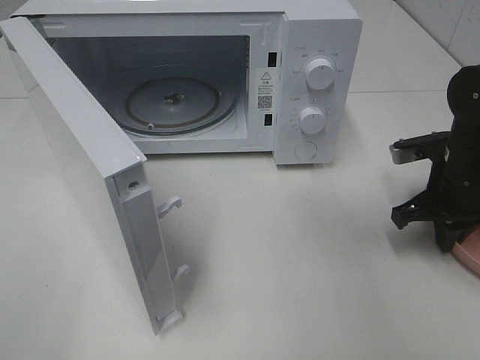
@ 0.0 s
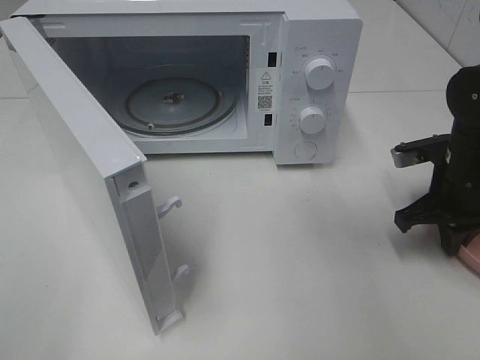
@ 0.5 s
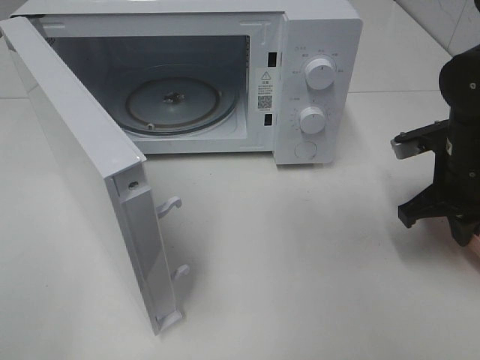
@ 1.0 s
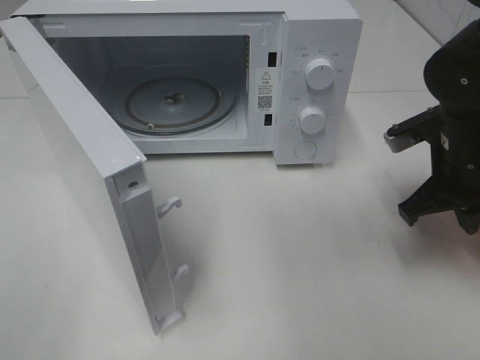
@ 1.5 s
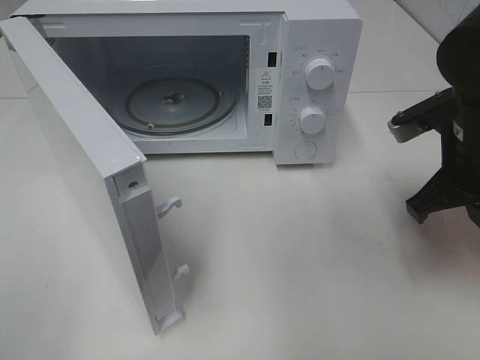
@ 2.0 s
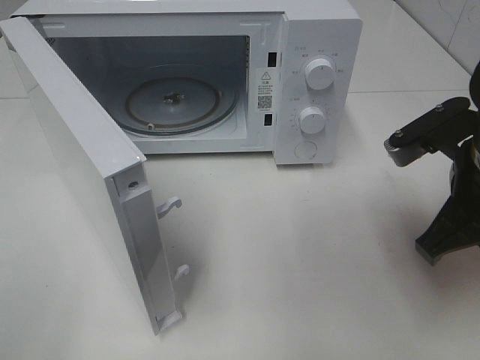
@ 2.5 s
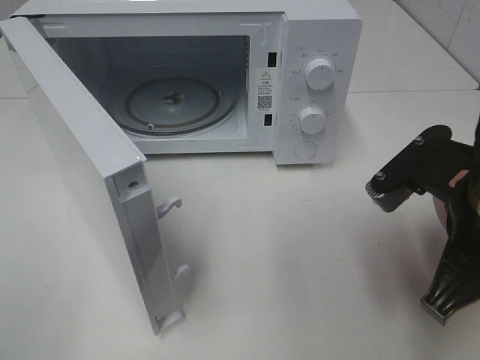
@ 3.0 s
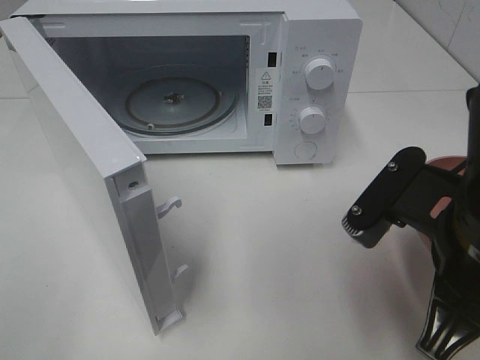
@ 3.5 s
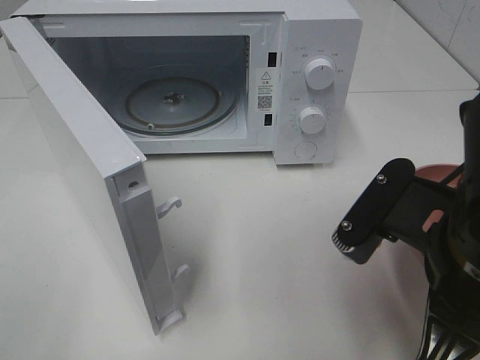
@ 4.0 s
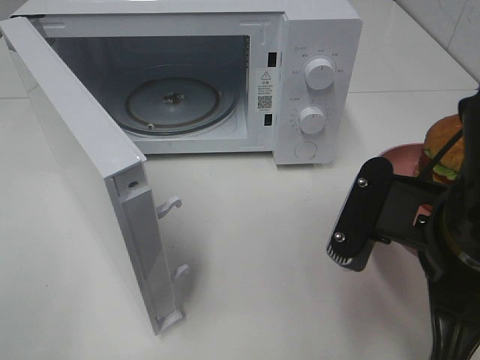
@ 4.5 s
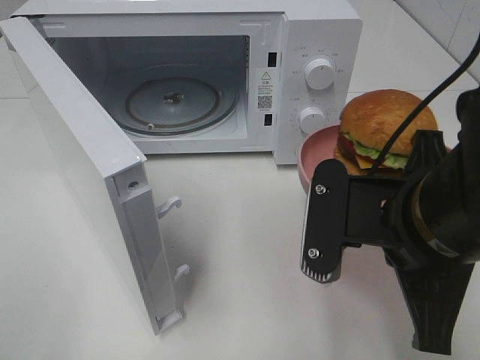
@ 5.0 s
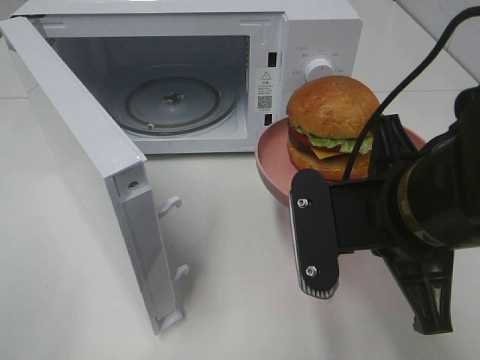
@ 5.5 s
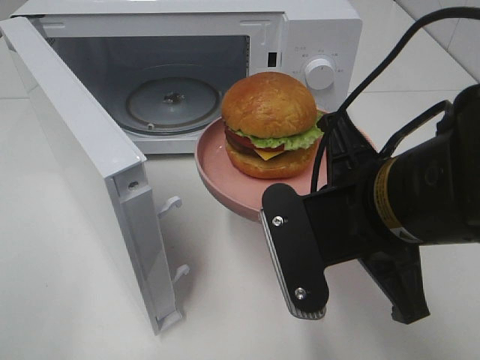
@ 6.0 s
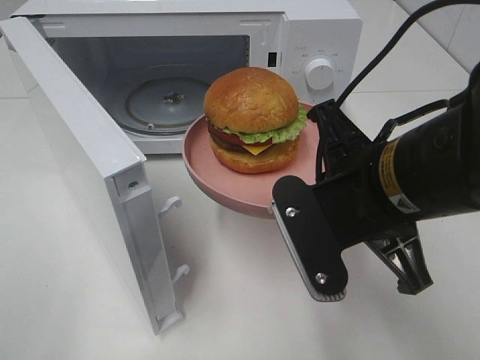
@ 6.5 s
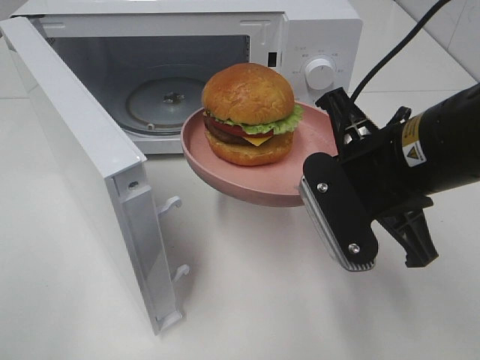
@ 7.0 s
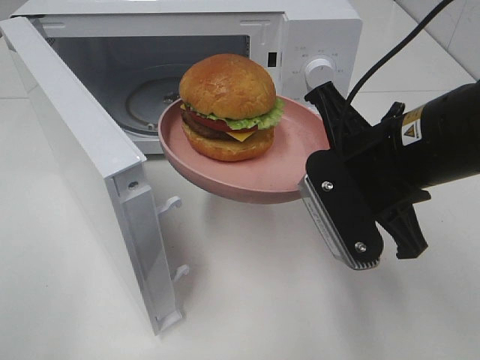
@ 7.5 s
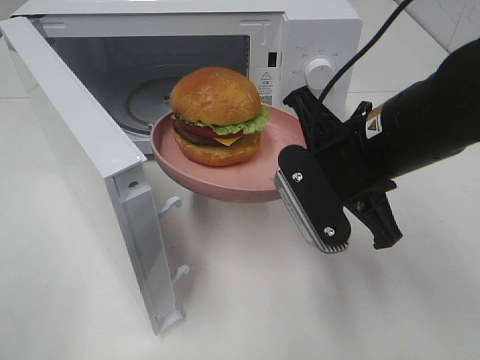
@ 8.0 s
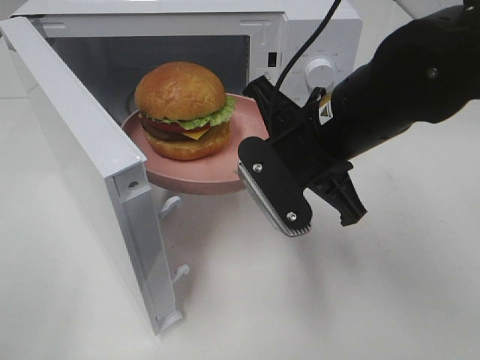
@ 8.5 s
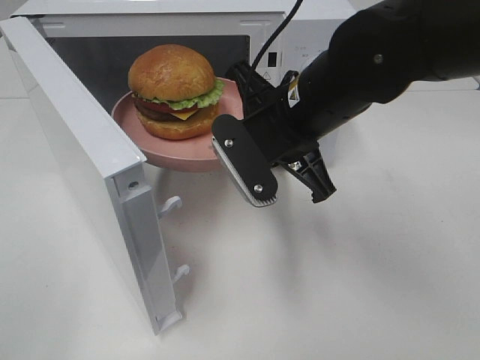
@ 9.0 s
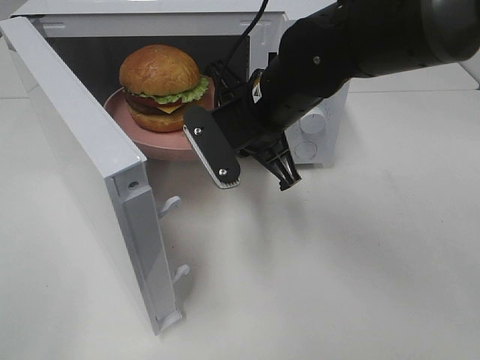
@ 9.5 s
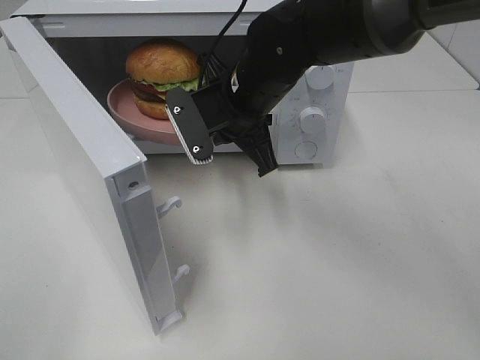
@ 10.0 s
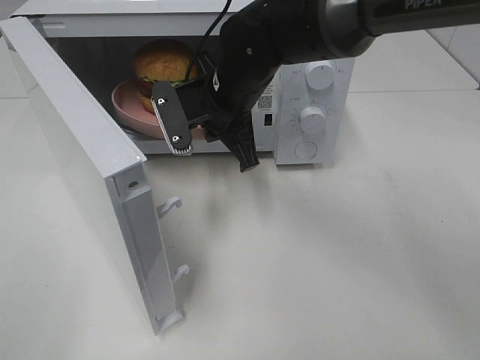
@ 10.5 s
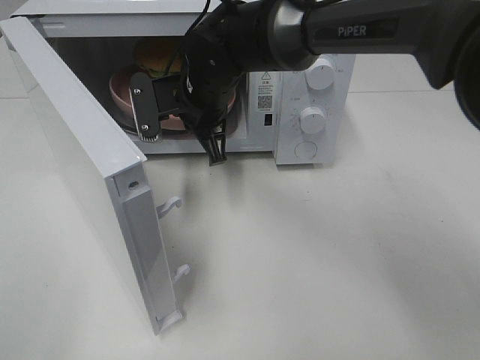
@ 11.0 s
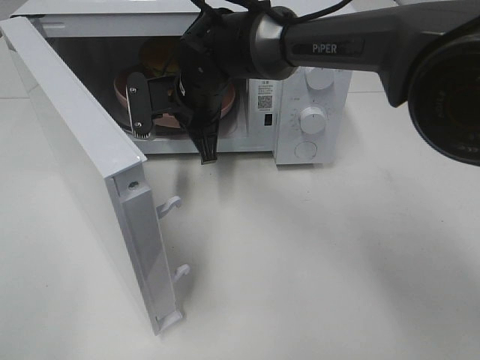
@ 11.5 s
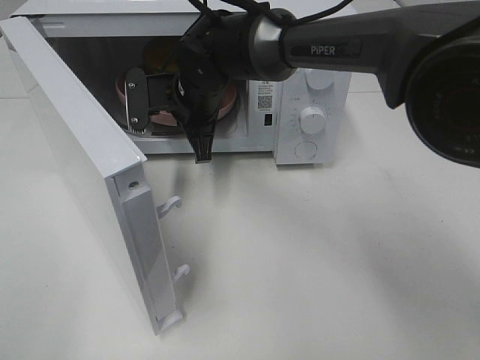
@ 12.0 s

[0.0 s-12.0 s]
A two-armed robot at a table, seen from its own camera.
Task of the whole recording: Heat the burger.
0.0 to 2.0 s: The right gripper is displaced upward by about 10 cm.
2.0 to 4.0 s: The right gripper heads backward and to the left, covering roughly 15 cm.
4.0 to 6.0 s: The right gripper changes place by roughly 5 cm.
6.0 to 8.0 s: The right gripper moves forward, some 10 cm.
8.0 to 10.0 s: The right gripper travels forward and to the left by about 15 cm.
10.0 to 12.0 s: The right gripper travels to the left and forward by about 10 cm.

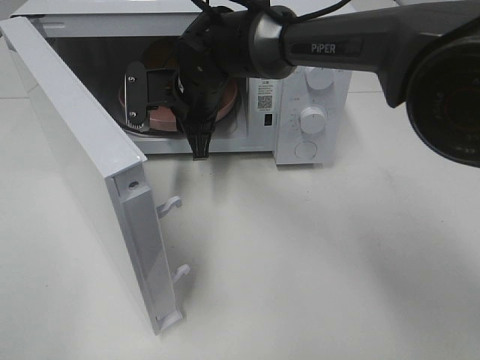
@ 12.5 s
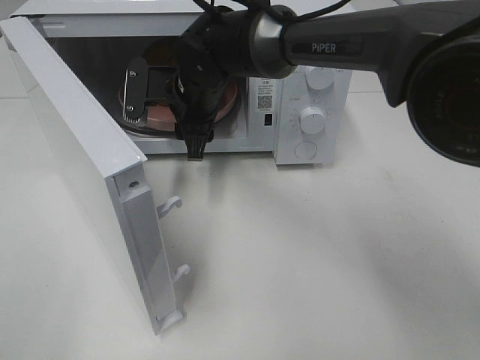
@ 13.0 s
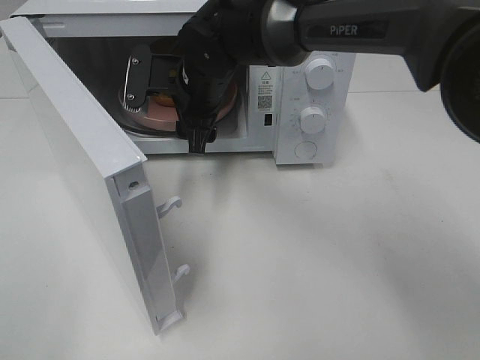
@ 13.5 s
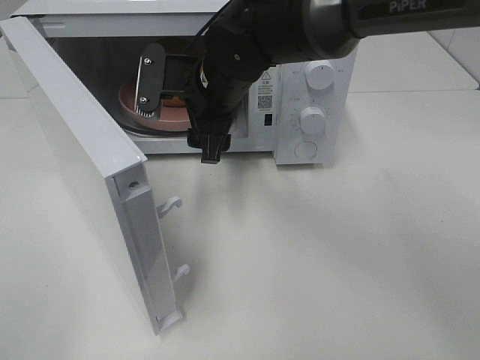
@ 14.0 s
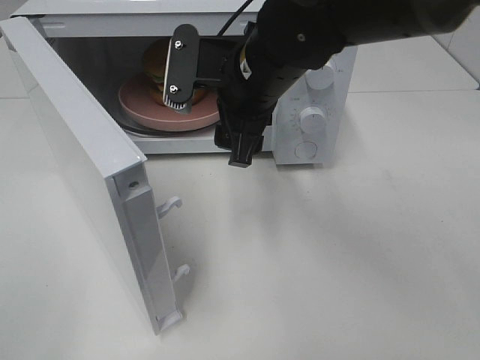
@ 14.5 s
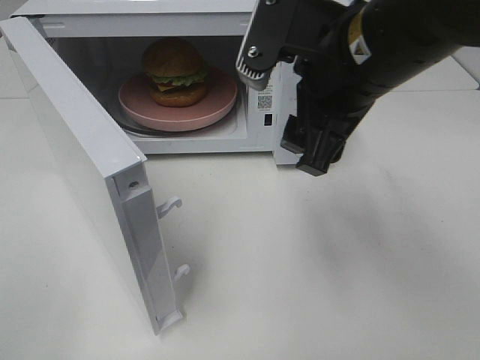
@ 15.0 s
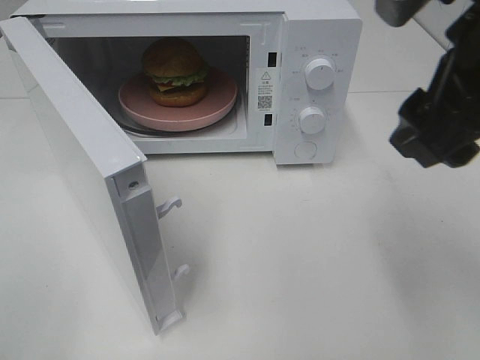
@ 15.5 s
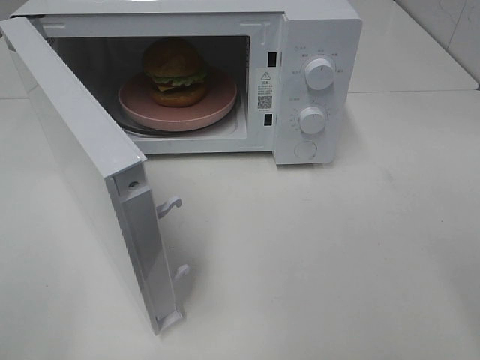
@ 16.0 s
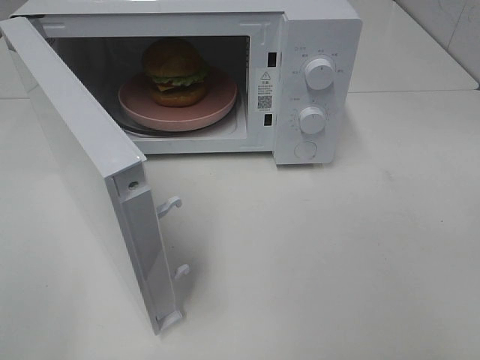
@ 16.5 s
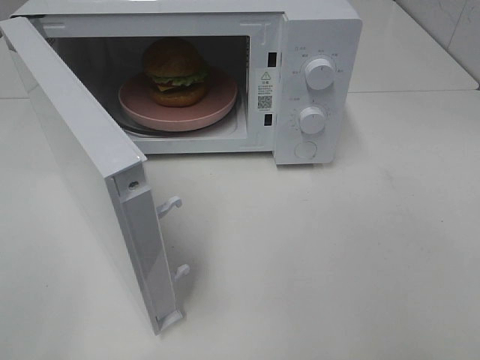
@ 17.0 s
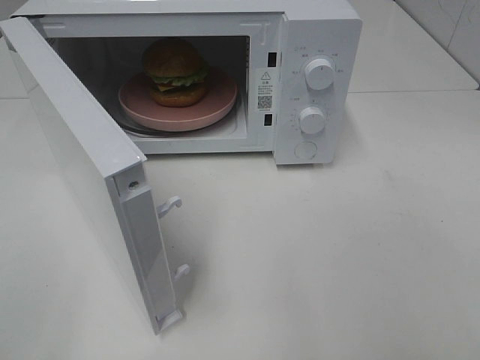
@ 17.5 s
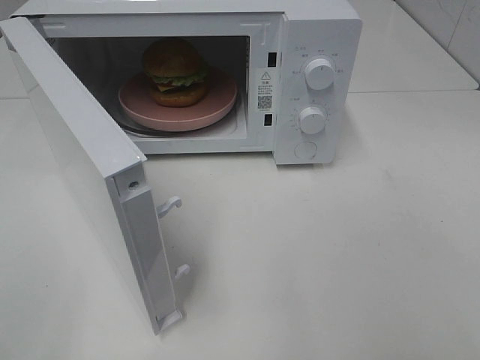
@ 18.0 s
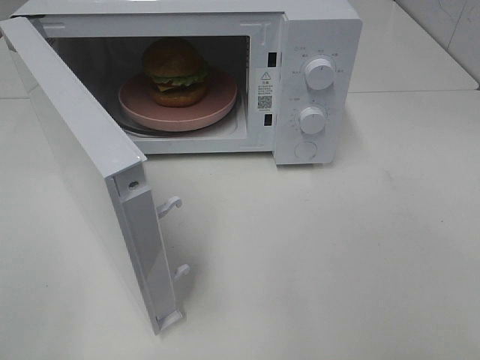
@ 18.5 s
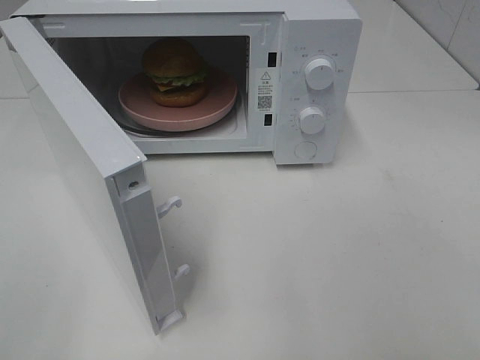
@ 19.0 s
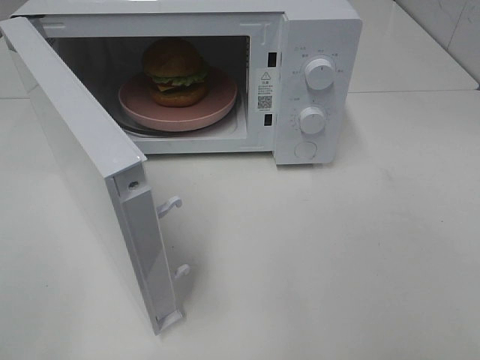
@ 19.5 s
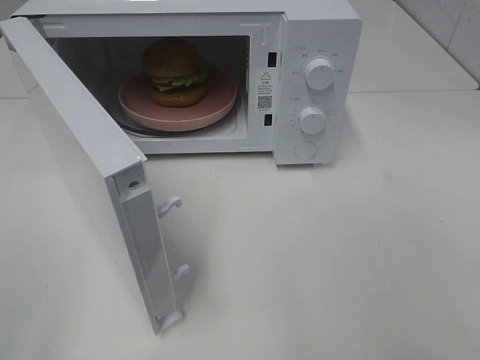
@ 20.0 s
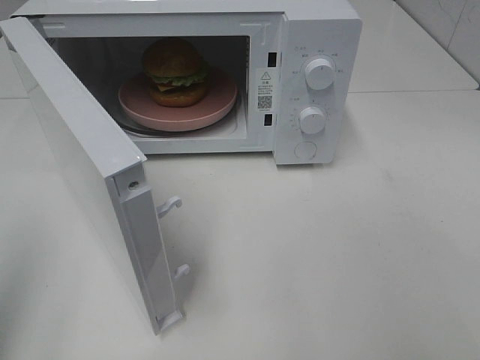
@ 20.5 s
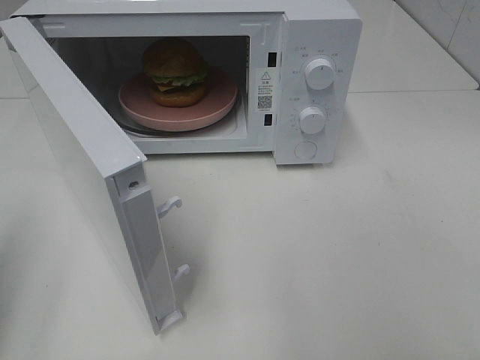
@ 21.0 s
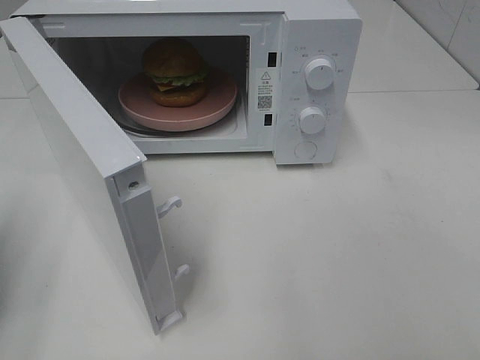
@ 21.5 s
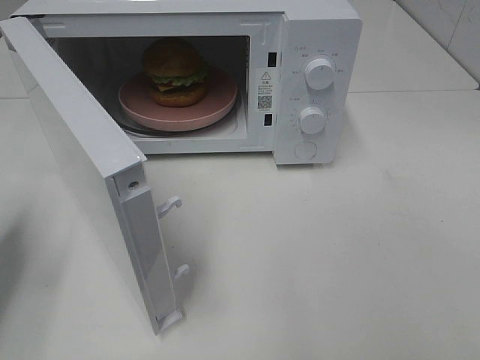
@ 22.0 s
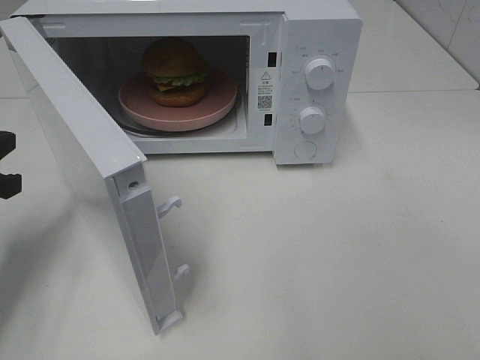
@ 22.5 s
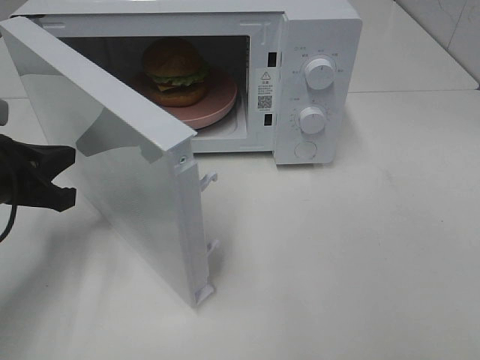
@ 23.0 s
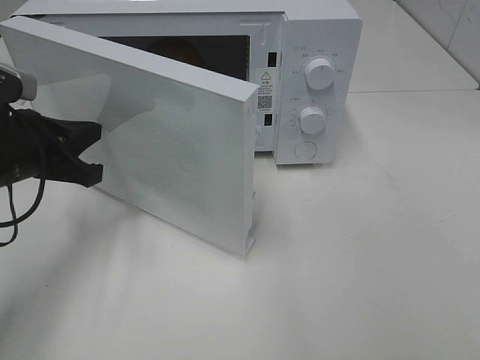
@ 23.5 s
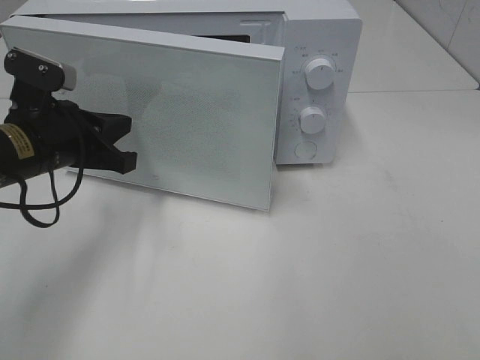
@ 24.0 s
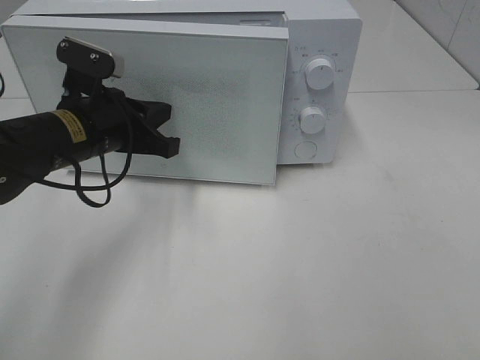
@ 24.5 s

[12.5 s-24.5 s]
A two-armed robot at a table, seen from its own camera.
Task of the whole recording: Heat the burger.
12.5 to 14.5 s: The right gripper is displaced backward, to the right and upward by approximately 15 cm, and opens.
14.5 to 16.5 s: The right gripper travels backward and to the right by about 35 cm.
20.5 to 22.5 s: The left gripper heads forward and downward, covering approximately 25 cm.
22.5 to 24.5 s: The left gripper goes about 15 cm to the right and forward.

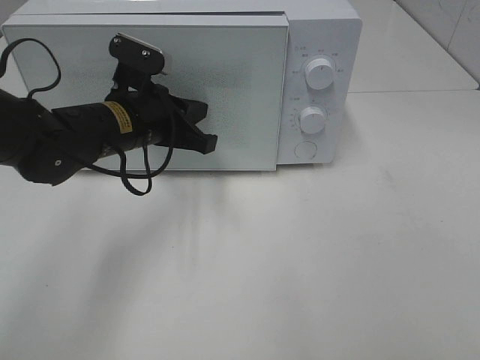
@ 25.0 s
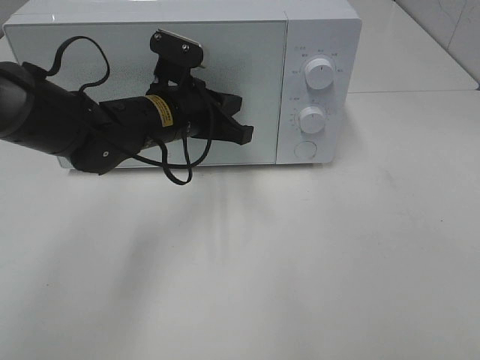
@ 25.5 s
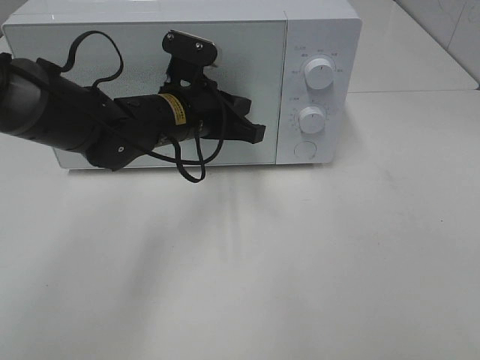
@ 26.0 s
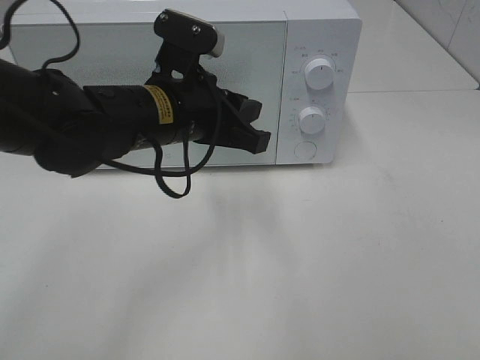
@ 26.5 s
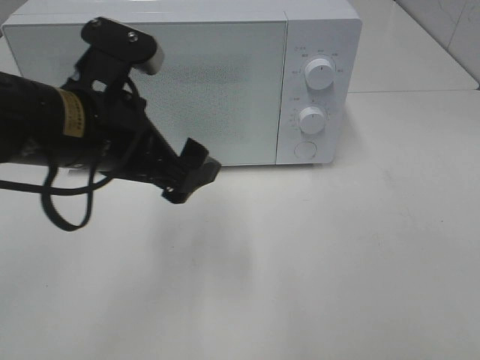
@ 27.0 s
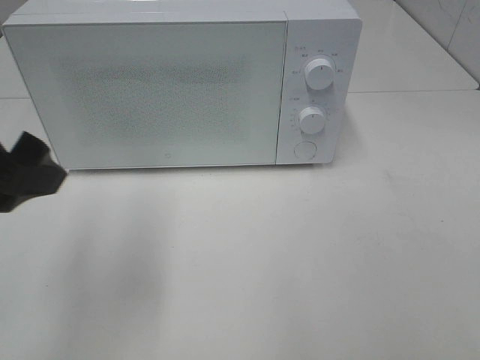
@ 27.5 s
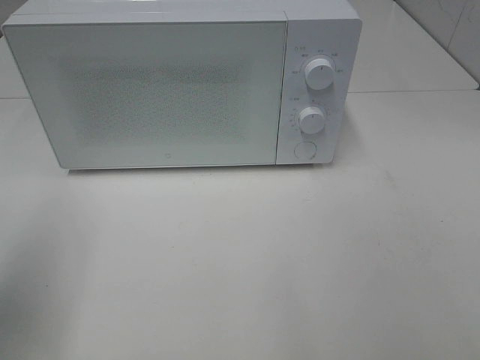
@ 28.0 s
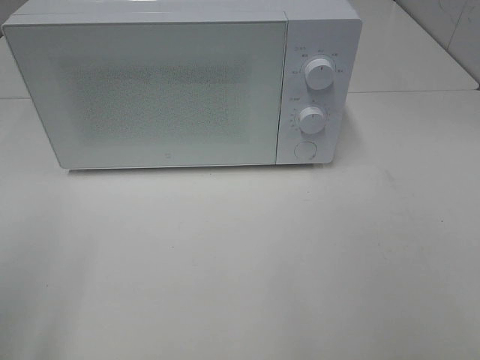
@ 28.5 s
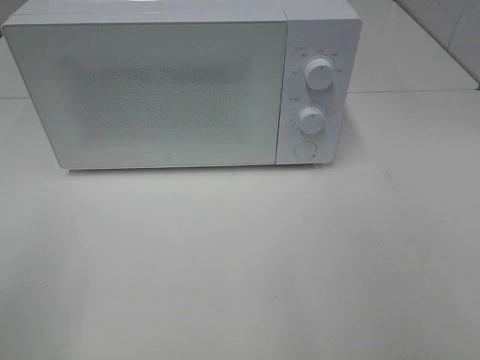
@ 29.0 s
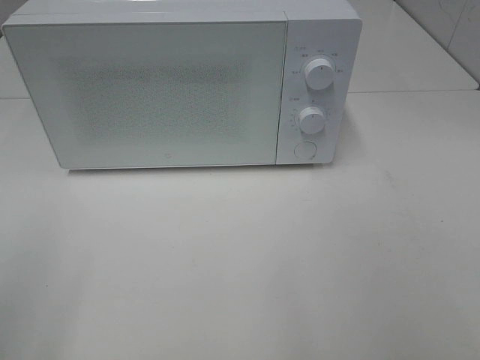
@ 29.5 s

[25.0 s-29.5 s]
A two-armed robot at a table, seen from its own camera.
Task of the whole recording: Heat the burger.
25.0 to 27.0 s: The left gripper heads backward and upward, covering approximately 15 cm, and opens its fingers.
27.0 to 29.5 s: The left gripper moves to the left and backward, approximately 25 cm.
